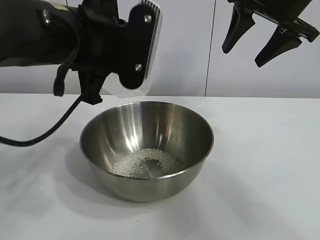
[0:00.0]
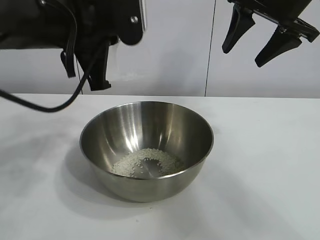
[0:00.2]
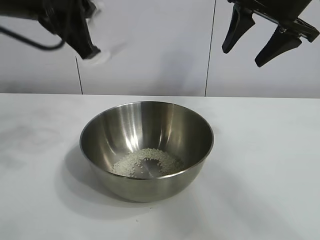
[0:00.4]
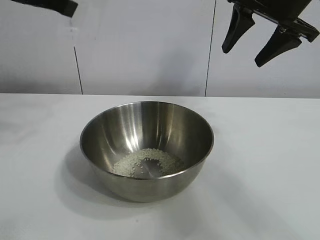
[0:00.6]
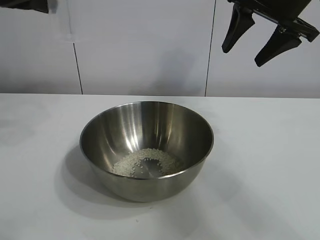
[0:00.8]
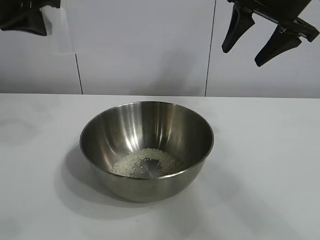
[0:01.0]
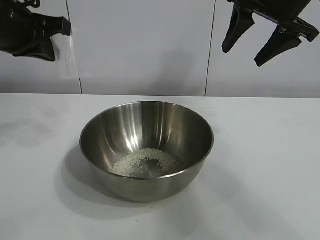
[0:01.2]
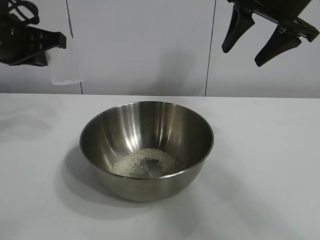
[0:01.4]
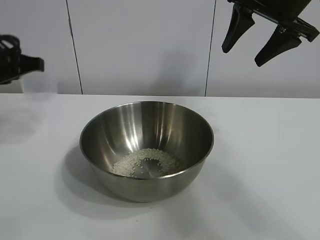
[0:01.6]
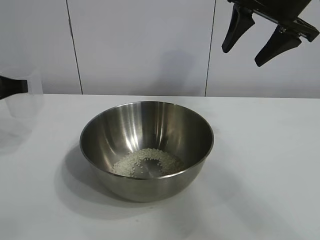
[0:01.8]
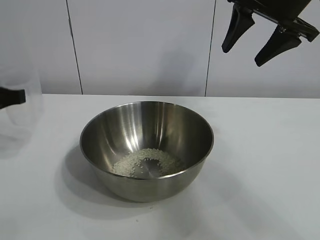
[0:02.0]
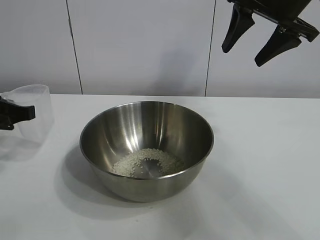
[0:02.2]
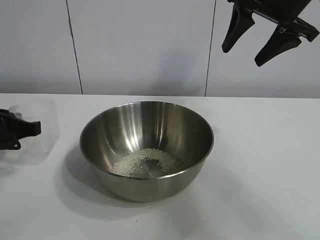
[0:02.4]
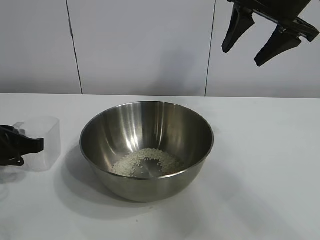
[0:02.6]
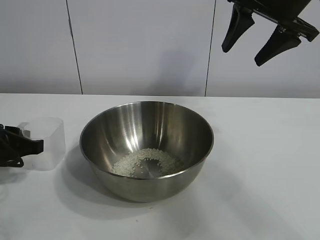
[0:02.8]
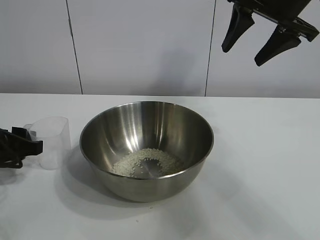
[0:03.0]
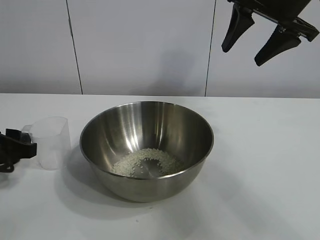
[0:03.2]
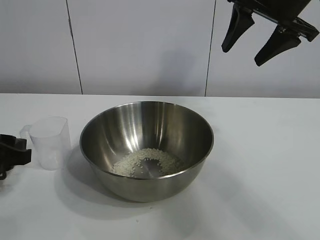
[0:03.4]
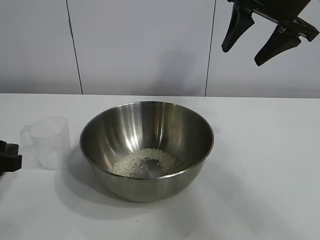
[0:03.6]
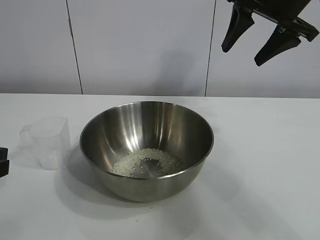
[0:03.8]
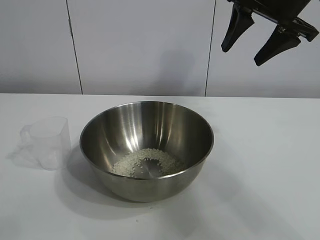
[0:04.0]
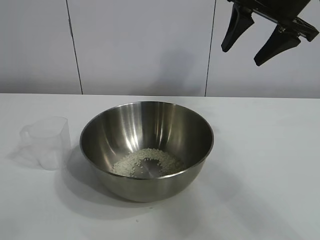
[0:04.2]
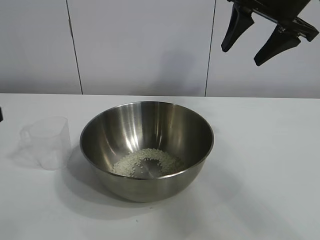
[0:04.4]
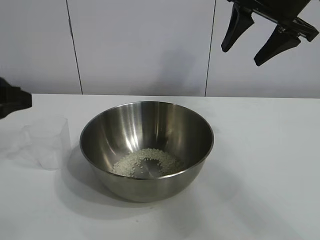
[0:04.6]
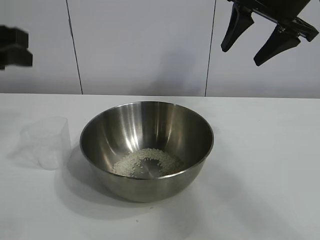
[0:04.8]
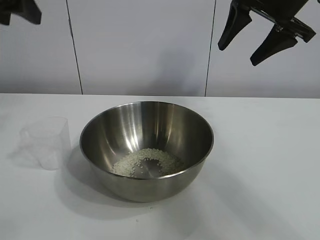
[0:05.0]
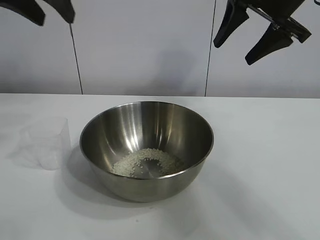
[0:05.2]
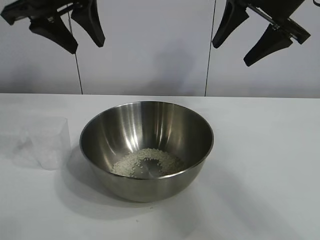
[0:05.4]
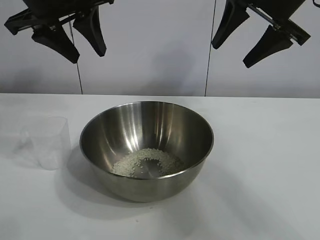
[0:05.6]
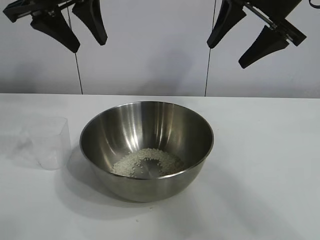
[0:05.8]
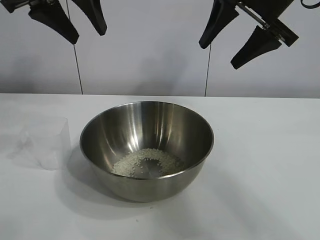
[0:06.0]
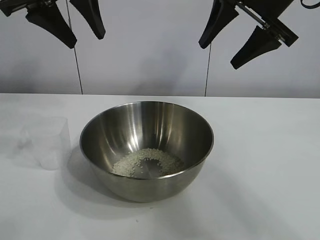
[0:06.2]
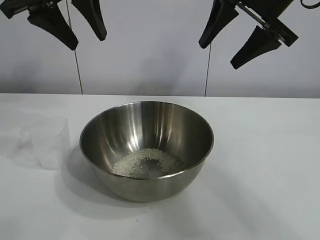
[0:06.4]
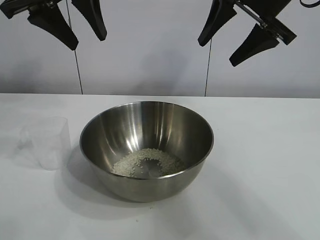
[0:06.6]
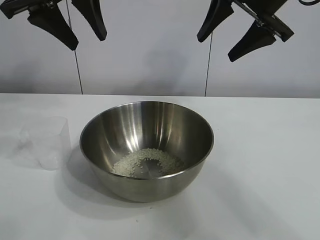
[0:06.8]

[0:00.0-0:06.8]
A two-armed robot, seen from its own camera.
Task of the whole recording: the right gripper grasp the rice container and place it in the center of the table, the left gripper grasp the rice scoop and pour the rice into the rice container.
Step, 0:00.0 to 0:03.2: Place the cup on the table with the left gripper.
